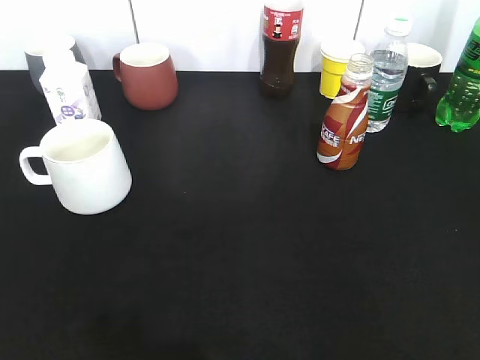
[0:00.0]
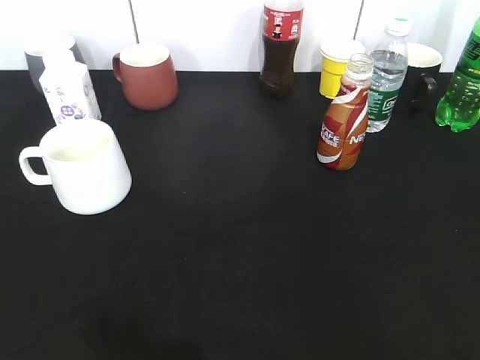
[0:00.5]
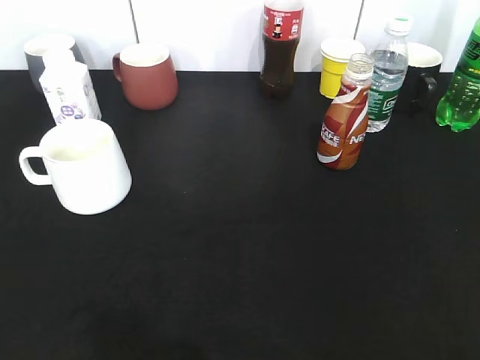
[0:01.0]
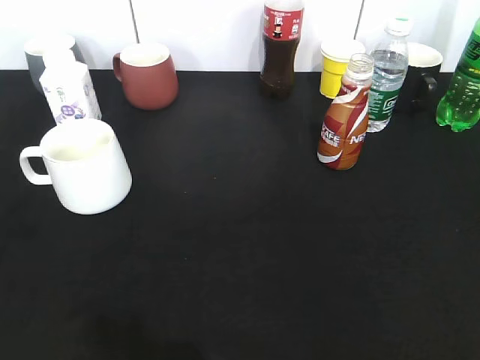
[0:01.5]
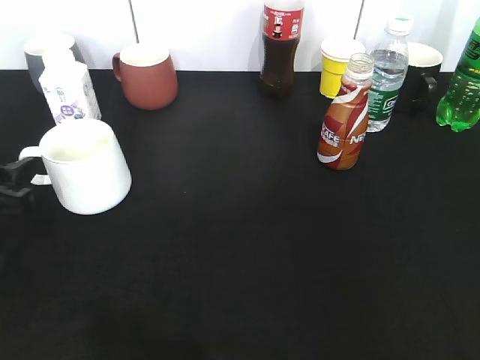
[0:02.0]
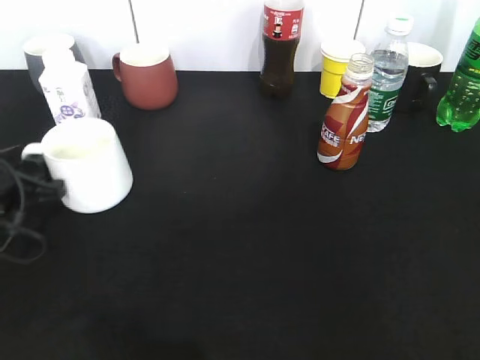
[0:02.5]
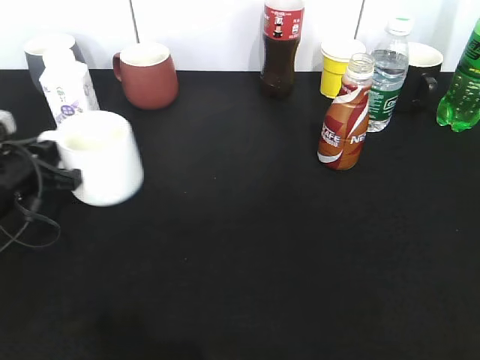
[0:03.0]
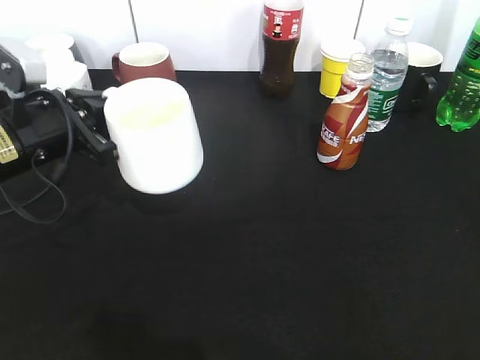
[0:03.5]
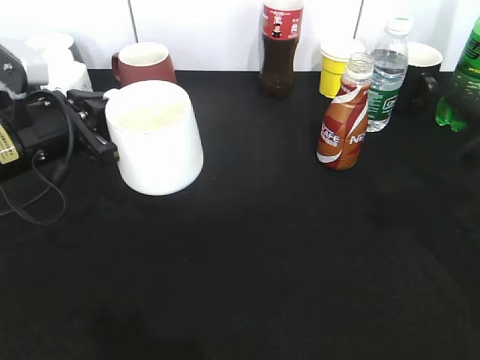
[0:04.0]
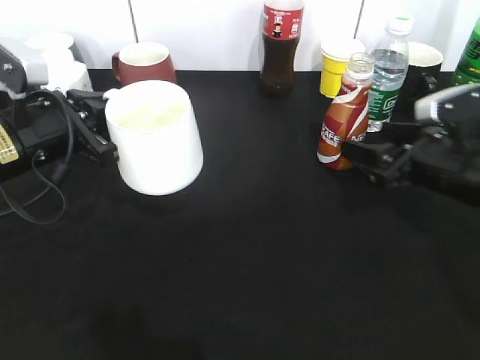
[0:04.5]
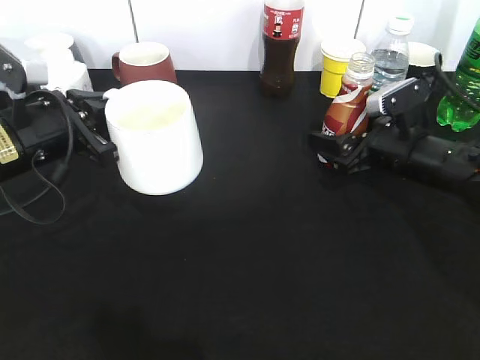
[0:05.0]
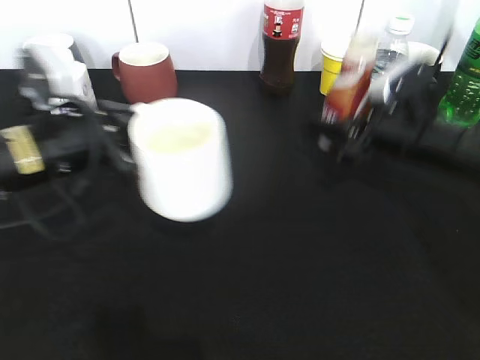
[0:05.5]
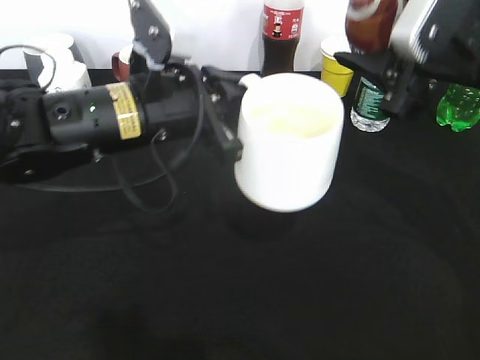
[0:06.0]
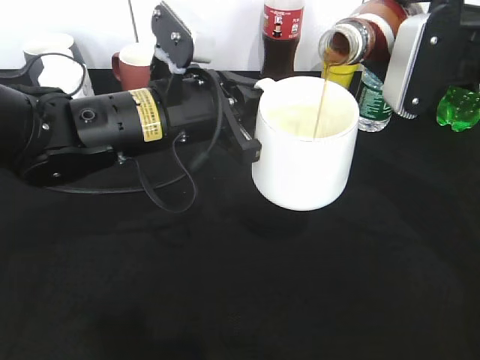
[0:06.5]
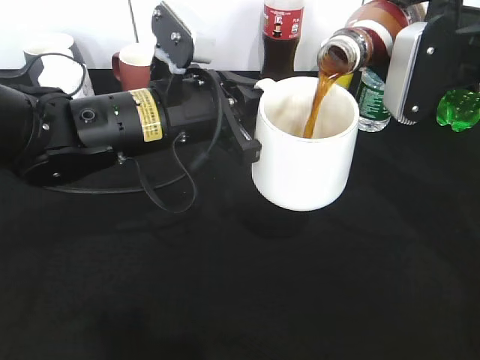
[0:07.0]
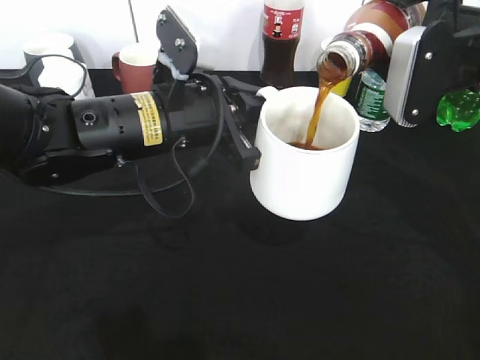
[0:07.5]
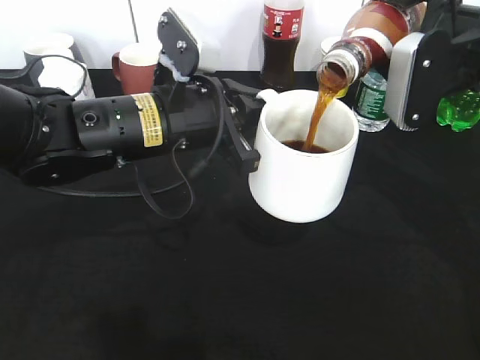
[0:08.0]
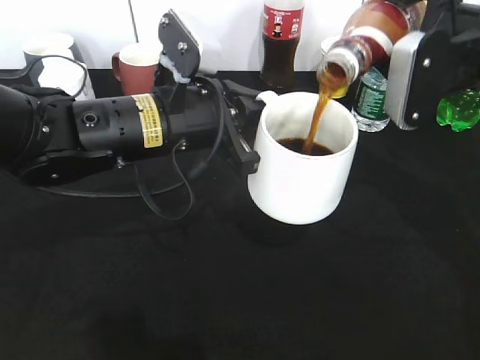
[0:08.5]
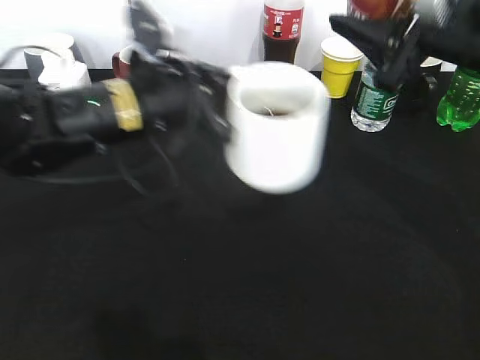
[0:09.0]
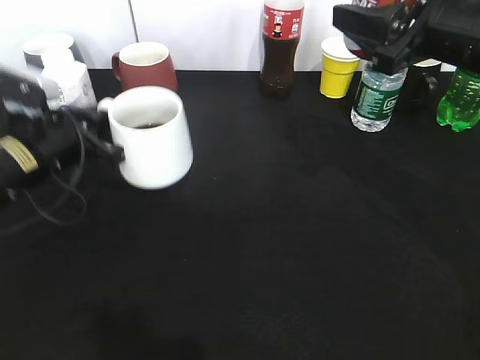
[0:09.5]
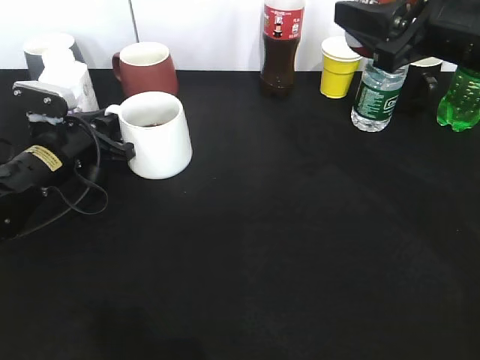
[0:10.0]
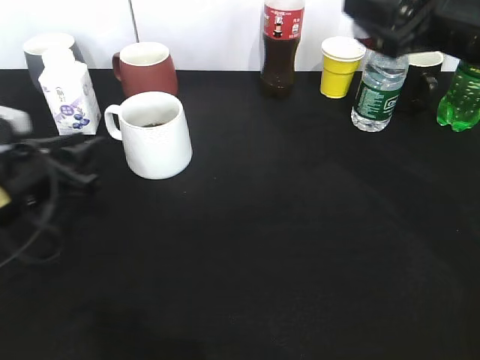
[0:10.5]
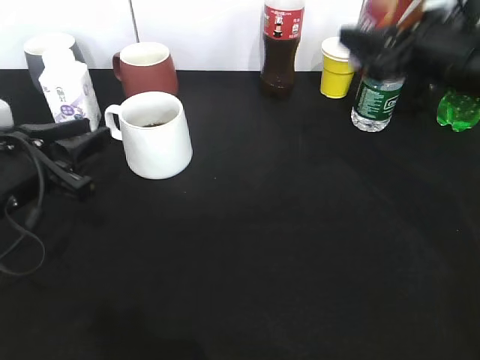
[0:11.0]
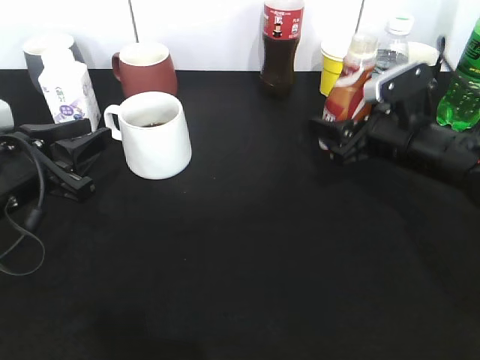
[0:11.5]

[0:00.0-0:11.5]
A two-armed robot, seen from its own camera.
Step, 0:01.0 to 0:02.5: Grasp the white cup with left gripper.
Step, 0:03.5 to 0:05.0: Grasp the bottle with coffee with right gripper.
Step, 0:05.5 to 0:08.5: Pour the coffee from bottle to cup with right gripper.
Step, 0:09.0 to 0:10.0: Place the white cup on the table with left gripper.
0:00.0 to 0:02.0: The left gripper shifts about 25 cm forward and downward, and opens.
0:02.0 to 0:04.0: The right gripper moves forward, some 20 cm. Meanwhile the left gripper is displaced forward and to the right by about 10 cm, and closes its fingers.
0:04.0 to 0:06.0: The right gripper travels forward and to the left by about 10 cm, reaches some 10 cm downward, then returns, and closes its fingers; the left gripper travels to the right by roughly 15 cm.
0:07.5 to 0:09.5: The left gripper travels to the left and downward by roughly 15 cm.
0:09.5 to 0:11.5: The left gripper travels backward by about 5 cm, and opens its fingers. The right gripper heads downward, covering approximately 15 cm.

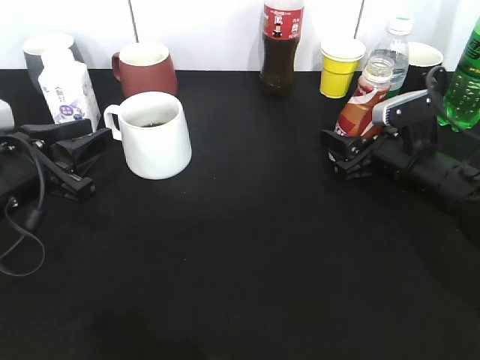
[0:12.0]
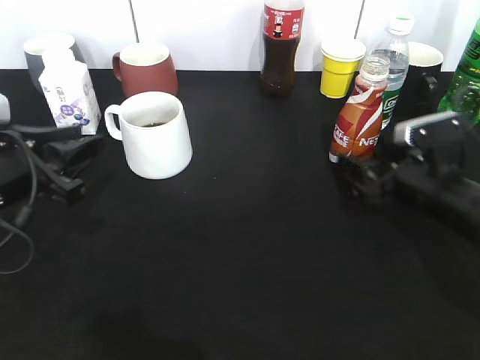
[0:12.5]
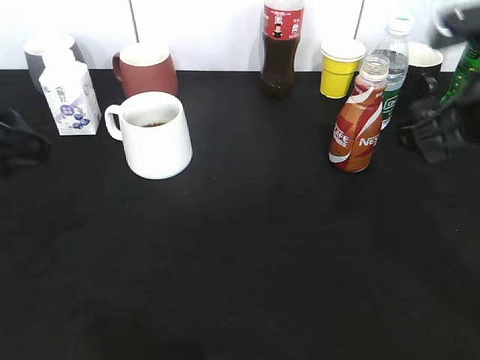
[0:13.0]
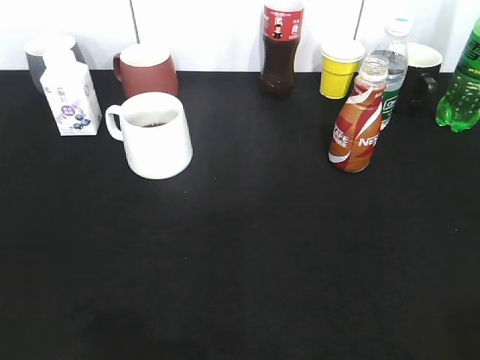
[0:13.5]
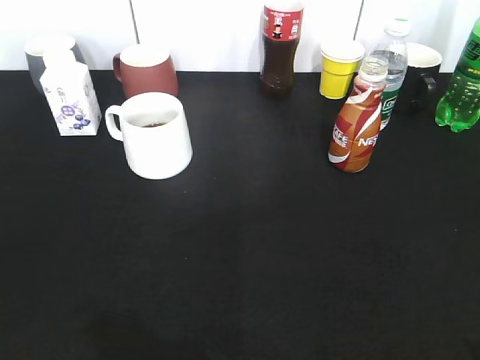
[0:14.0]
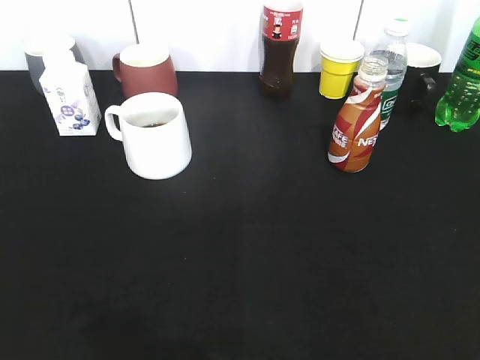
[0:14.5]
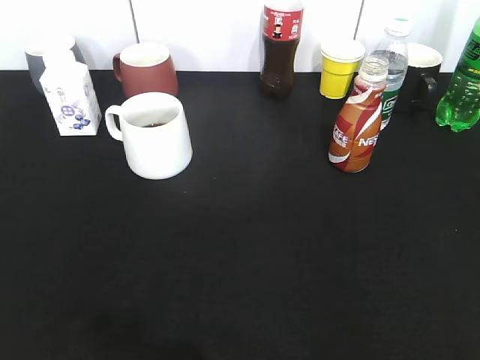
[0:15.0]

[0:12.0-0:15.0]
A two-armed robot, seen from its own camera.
0:12.0 to 0:13.5: Both grippers move backward and upward, some 30 cm. The right gripper opens and closes again; the left gripper opens.

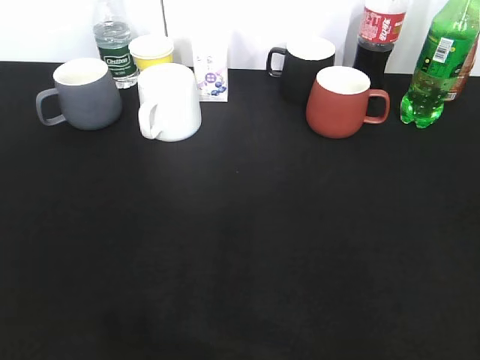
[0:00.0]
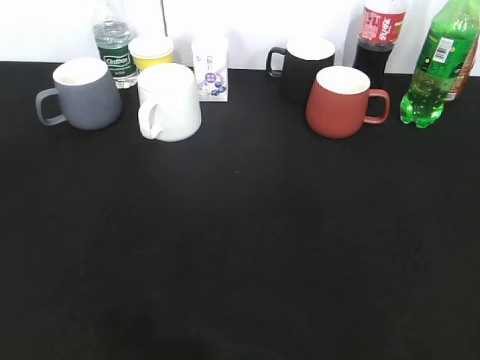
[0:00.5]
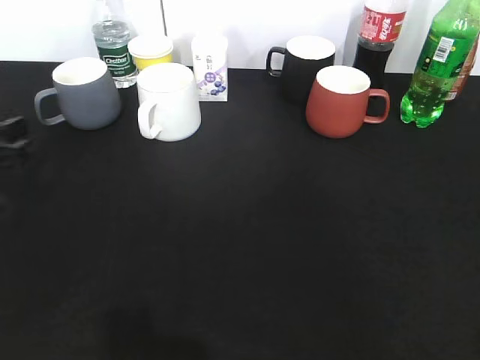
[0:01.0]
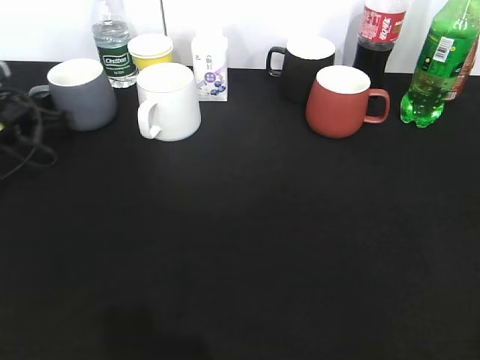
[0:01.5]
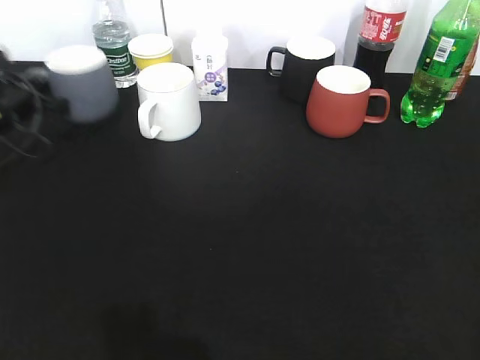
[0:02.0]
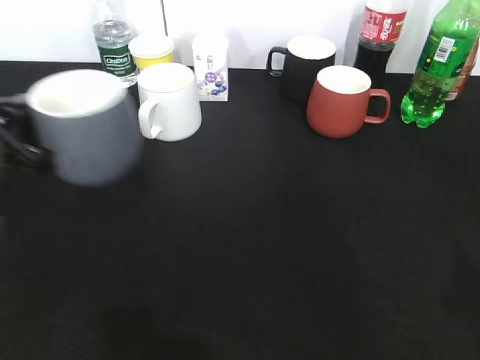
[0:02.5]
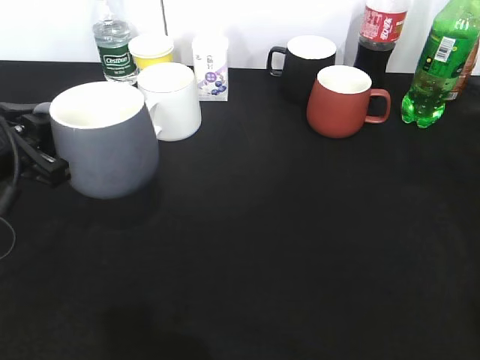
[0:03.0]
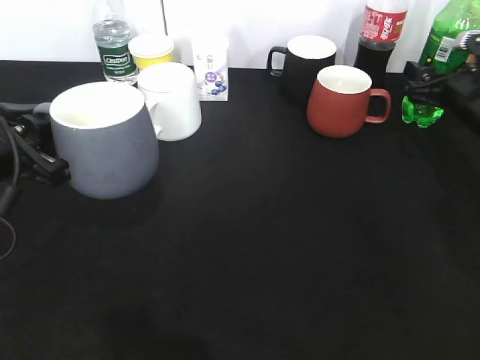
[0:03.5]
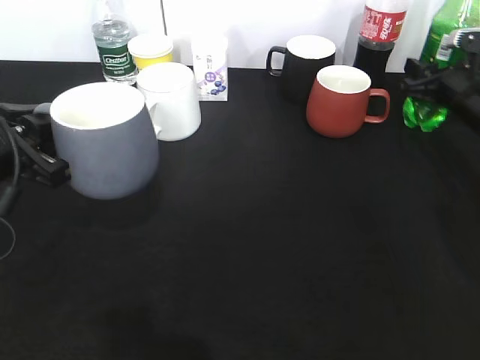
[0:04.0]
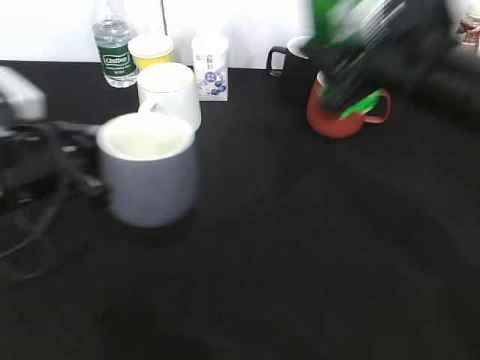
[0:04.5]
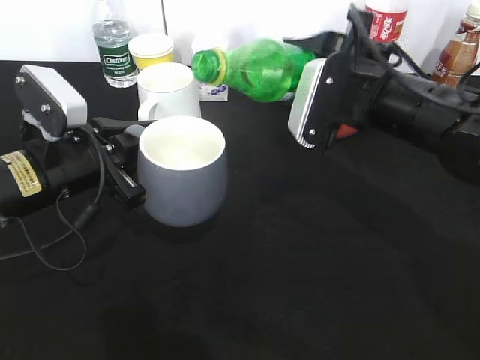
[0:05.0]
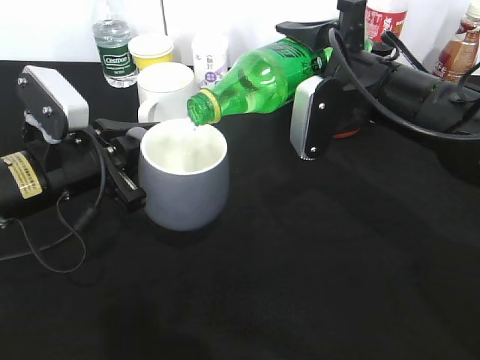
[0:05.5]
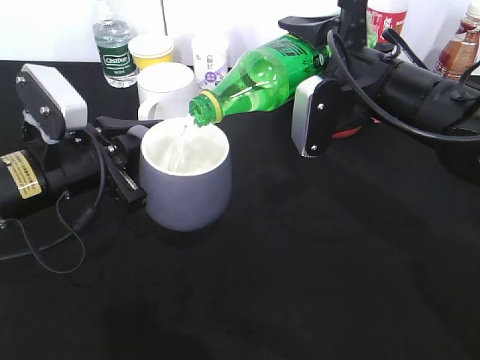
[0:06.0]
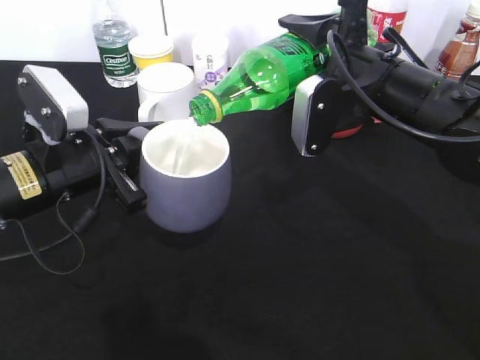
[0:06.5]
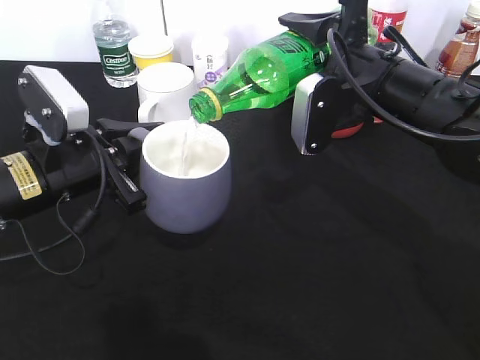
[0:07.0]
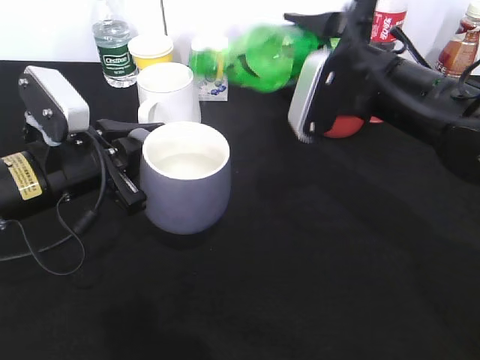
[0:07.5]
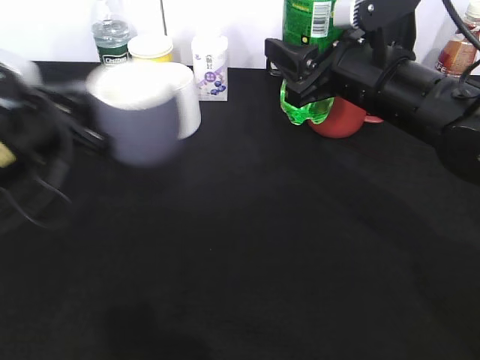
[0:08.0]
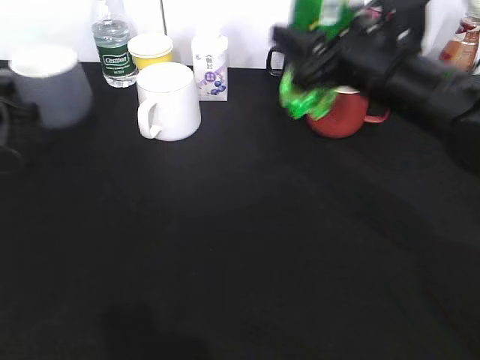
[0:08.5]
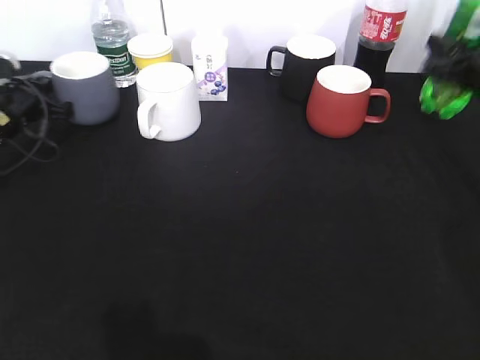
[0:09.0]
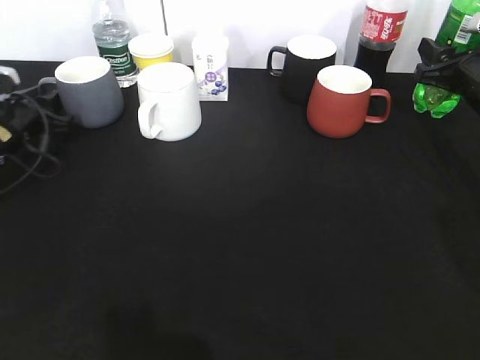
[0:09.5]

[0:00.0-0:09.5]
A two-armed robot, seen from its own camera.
Step, 0:00.0 to 0:01.5: Grasp the grey cup with left gripper.
Step, 0:02.0 to 0:02.5: Lift the grey cup with left gripper.
Step, 0:03.0 to 0:03.5: Grasp the bottle with sprite with right gripper.
Step, 0:04.0 to 0:07.5: Pour the sprite from bottle to cup with right gripper.
0:00.0 to 0:02.0: The left gripper moves forward, roughly 40 cm, and closes its fingers.
0:02.0 to 0:04.0: The right gripper heads forward, covering approximately 40 cm, and closes up; the left gripper is displaced backward and to the right by roughly 15 cm.
0:04.0 to 0:05.5: The right gripper moves to the left, backward and upward, roughly 20 cm; the left gripper goes about 5 cm to the right.
0:05.5 to 0:07.5: There are only small adjustments of the grippers.
0:07.5 to 0:09.5: The left gripper is displaced forward, to the left and downward by approximately 20 cm, and opens; the right gripper moves to the right and forward, roughly 20 cm.

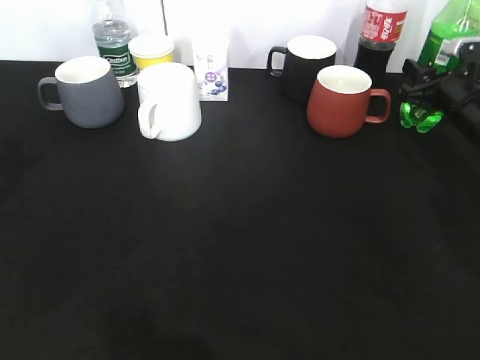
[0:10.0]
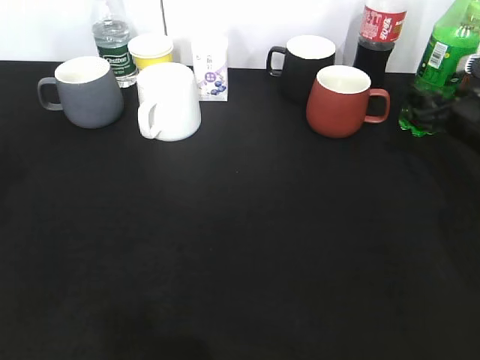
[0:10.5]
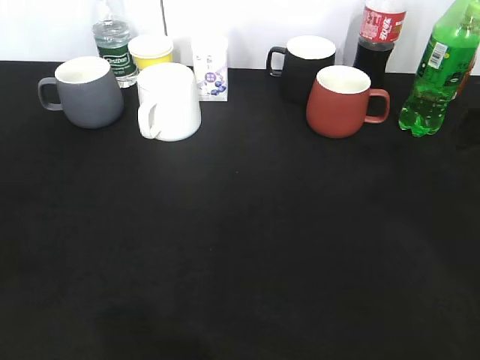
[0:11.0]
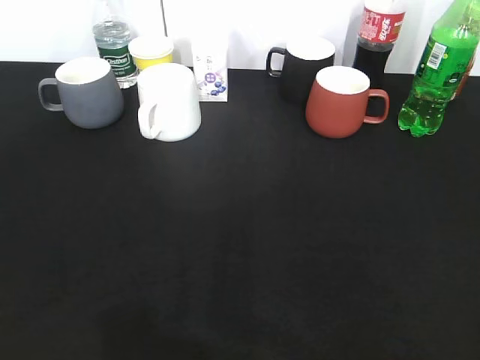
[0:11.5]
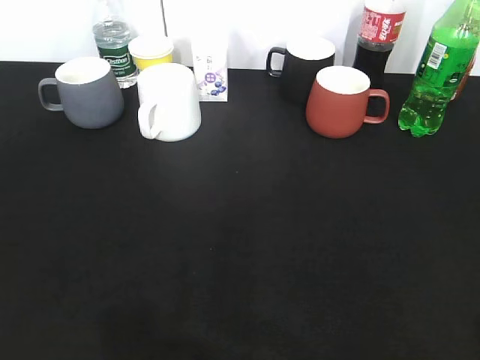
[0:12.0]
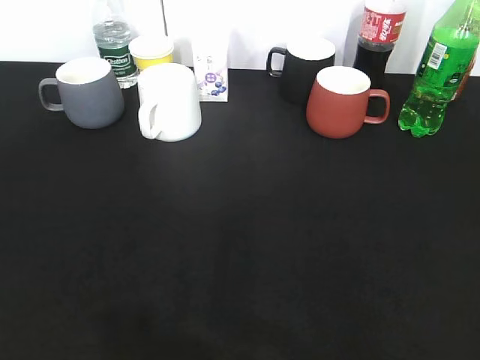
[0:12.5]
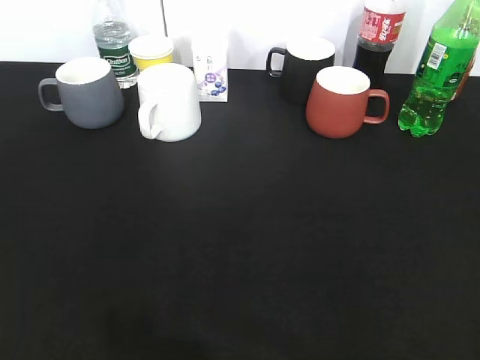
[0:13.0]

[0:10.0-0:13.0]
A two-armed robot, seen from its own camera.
0:10.0 to 0:11.5: The right gripper goes approximately 50 cm backward and upward, and opens up. Meanwhile the left gripper shifts some 25 cm backward.
